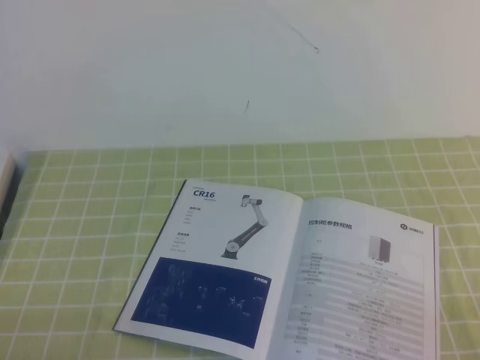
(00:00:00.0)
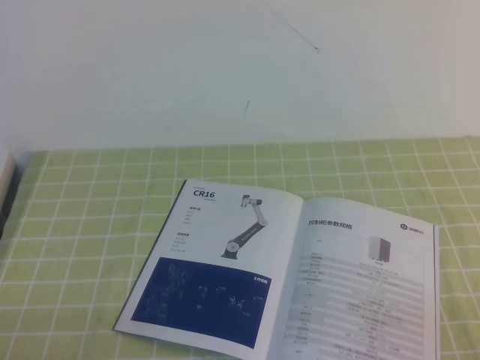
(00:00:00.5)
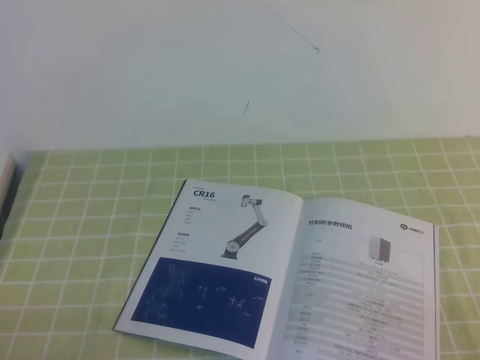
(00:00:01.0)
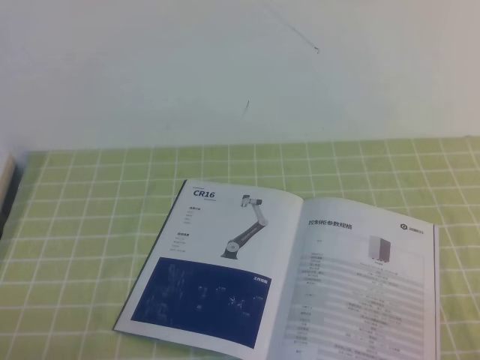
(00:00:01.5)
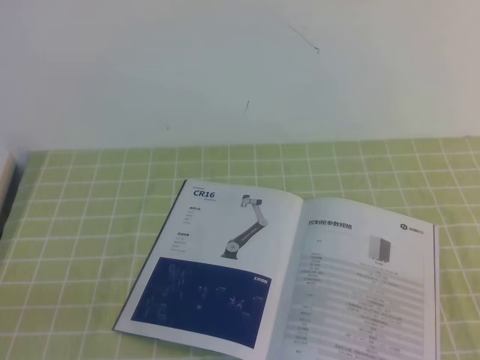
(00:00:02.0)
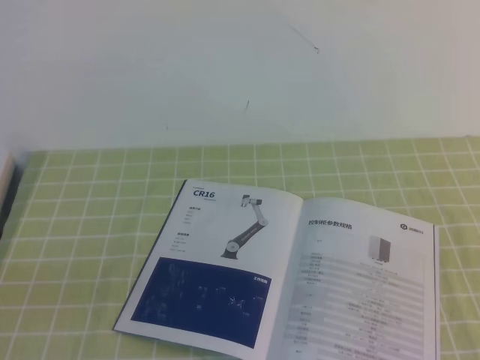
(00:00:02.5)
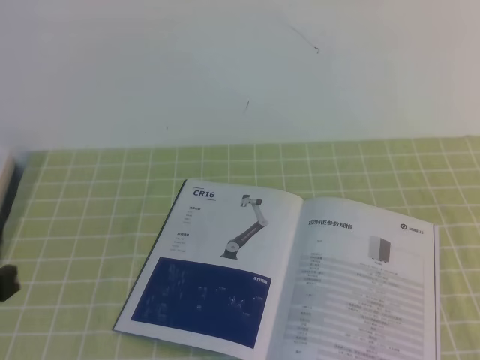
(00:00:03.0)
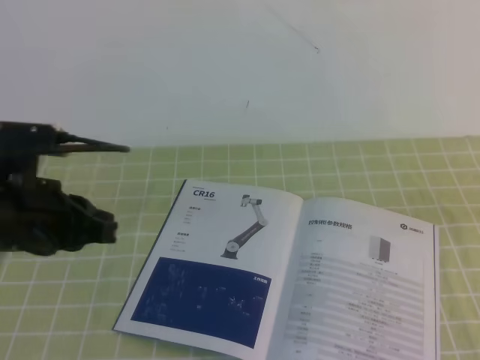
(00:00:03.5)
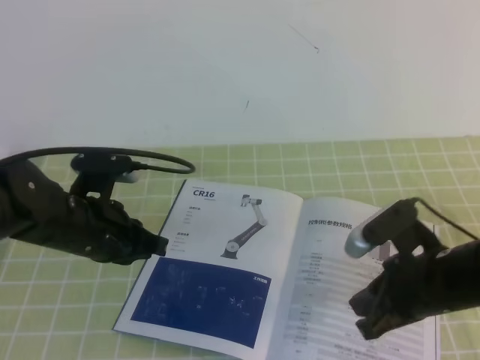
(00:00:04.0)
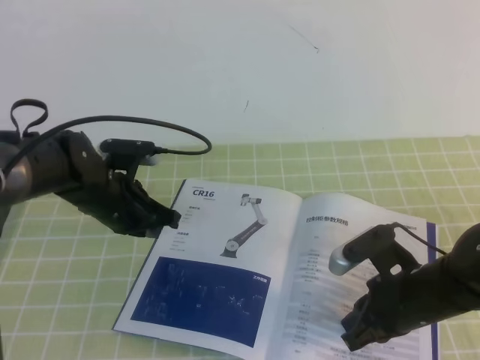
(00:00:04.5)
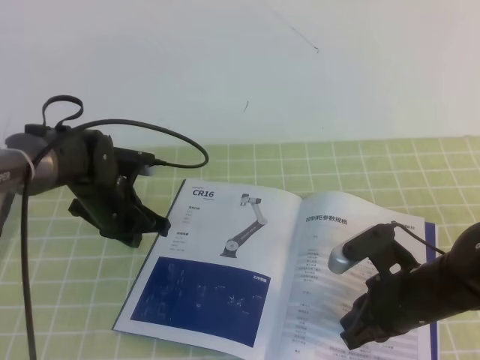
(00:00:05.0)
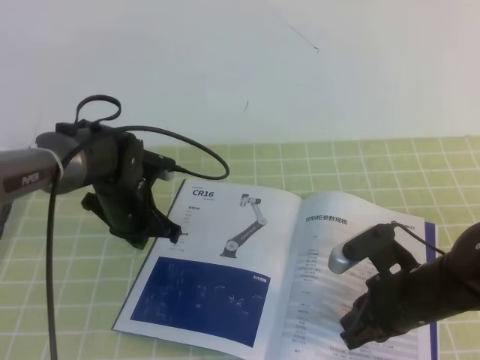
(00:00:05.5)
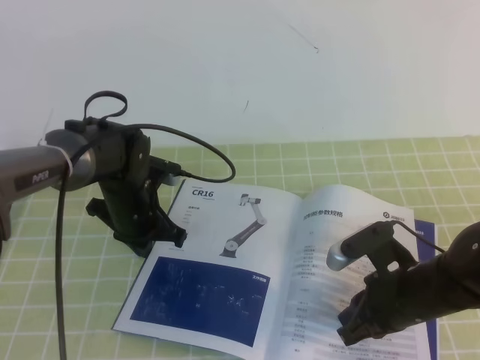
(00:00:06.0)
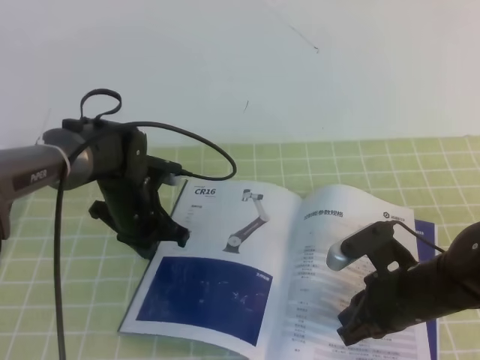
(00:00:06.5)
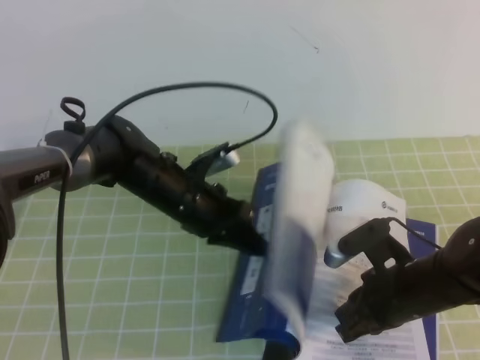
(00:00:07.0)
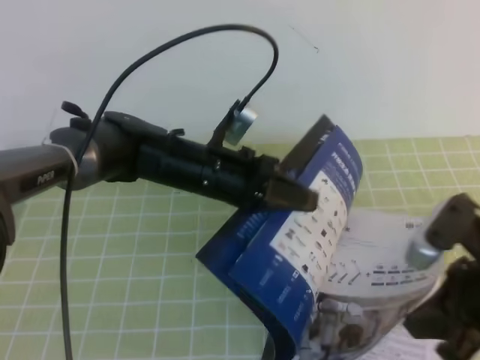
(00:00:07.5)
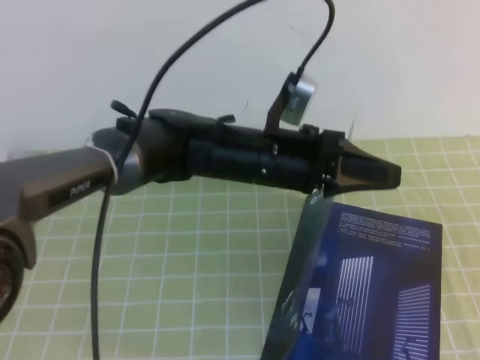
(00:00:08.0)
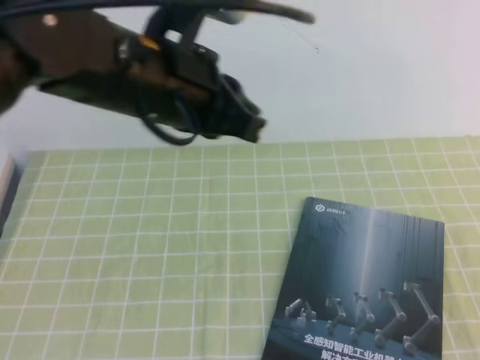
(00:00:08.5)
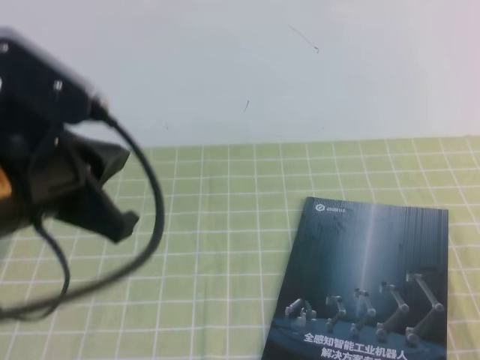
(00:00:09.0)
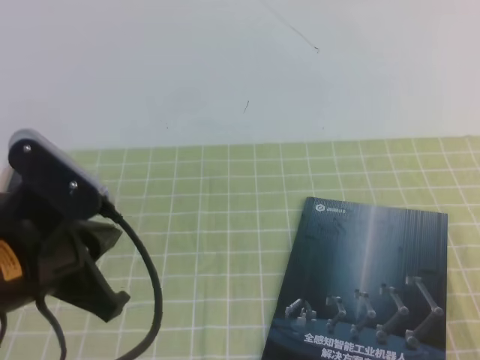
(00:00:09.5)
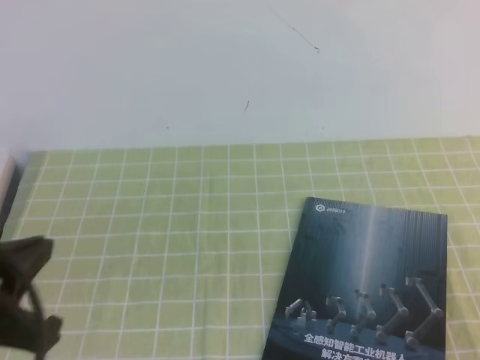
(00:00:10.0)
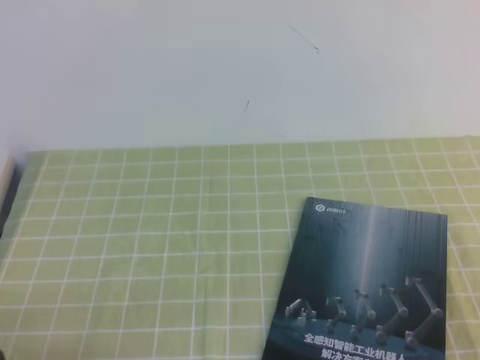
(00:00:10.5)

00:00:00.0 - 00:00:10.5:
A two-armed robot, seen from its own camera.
Task of the whole recording: on the green tablecloth, hold the book with one hand and close it with the other.
00:00:02.0 - 00:00:04.0: The right gripper travels forward and to the left by roughly 20 cm. Meanwhile the left gripper goes about 25 cm forward and to the right.
00:00:04.0 - 00:00:06.5: The left gripper is displaced forward and downward by roughly 15 cm, while the right gripper heads downward, covering about 10 cm.
00:00:06.5 - 00:00:08.5: Both grippers move upward, backward and to the right, about 25 cm.
00:00:08.5 - 00:00:10.5: The right gripper heads downward, covering roughly 5 cm. Meanwhile the left gripper is displaced to the left, backward and downward by roughly 35 cm.

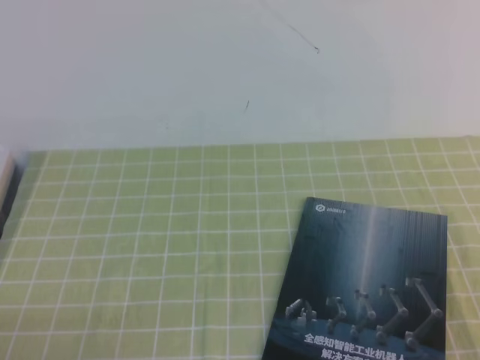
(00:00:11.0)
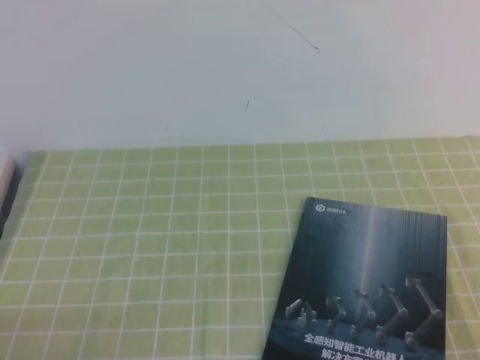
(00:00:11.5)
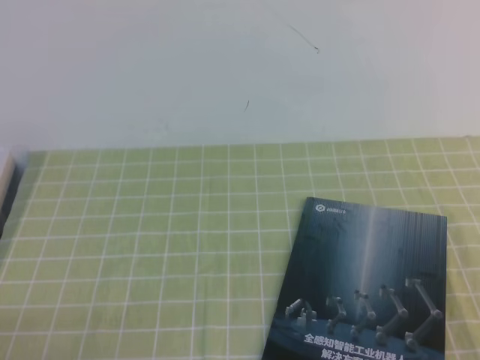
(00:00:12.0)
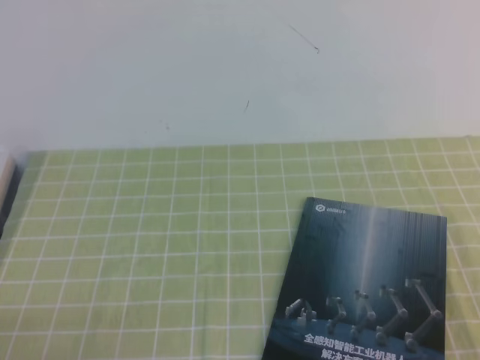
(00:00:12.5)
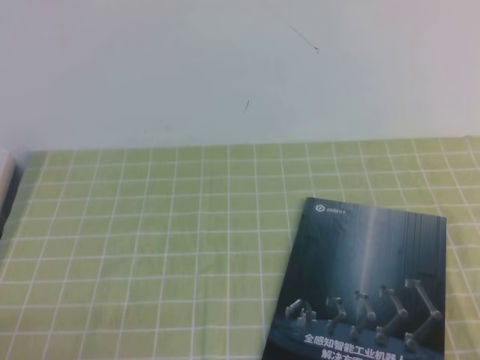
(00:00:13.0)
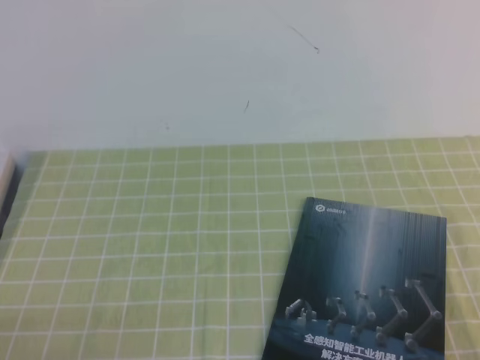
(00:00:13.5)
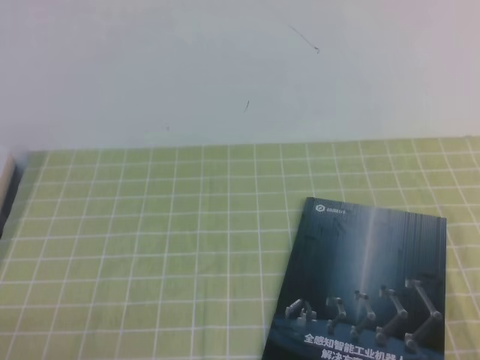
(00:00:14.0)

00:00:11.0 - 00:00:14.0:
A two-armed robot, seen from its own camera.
Task of the whole recording: on the green tablecloth, hold the book with one hand and close it with the other.
00:00:11.0 - 00:00:12.5: The two grippers keep their place.
